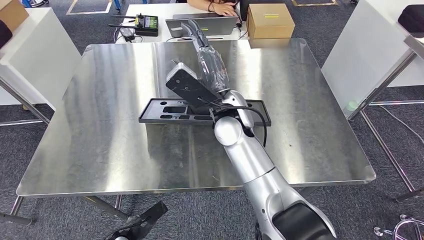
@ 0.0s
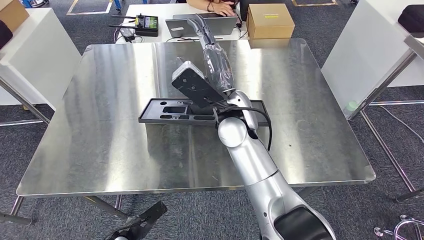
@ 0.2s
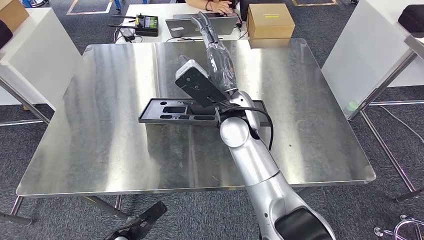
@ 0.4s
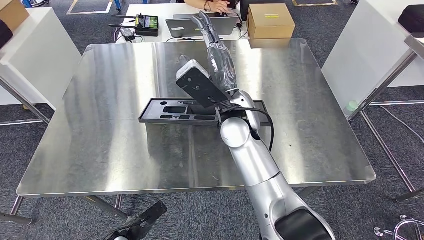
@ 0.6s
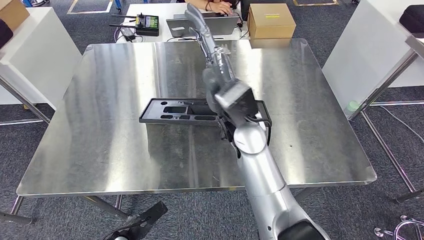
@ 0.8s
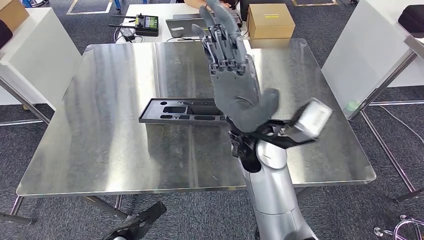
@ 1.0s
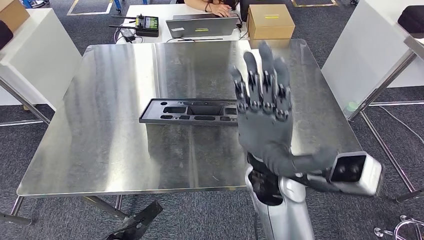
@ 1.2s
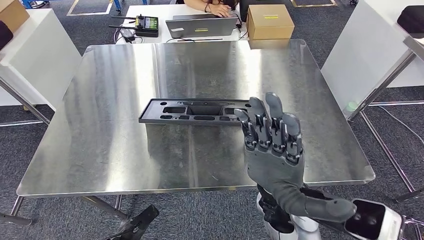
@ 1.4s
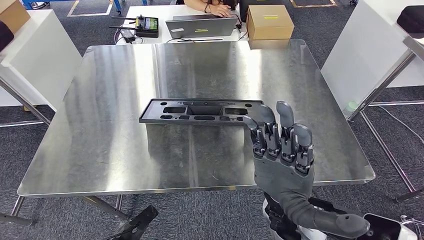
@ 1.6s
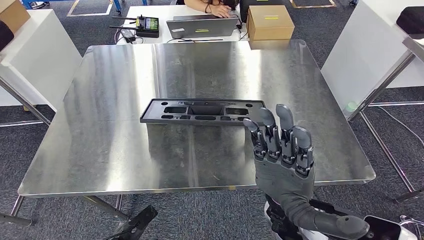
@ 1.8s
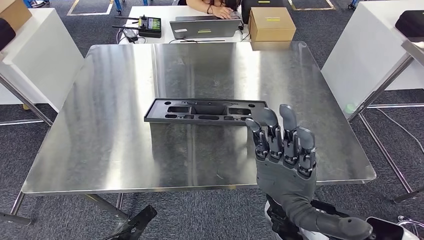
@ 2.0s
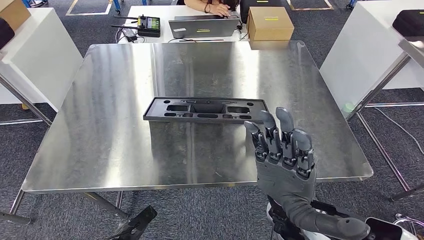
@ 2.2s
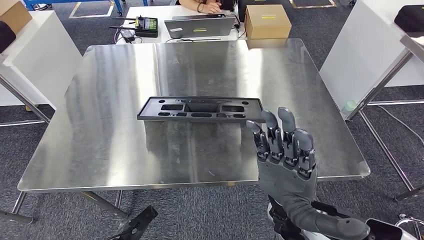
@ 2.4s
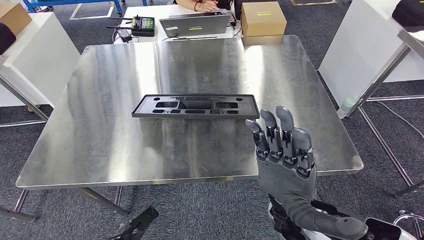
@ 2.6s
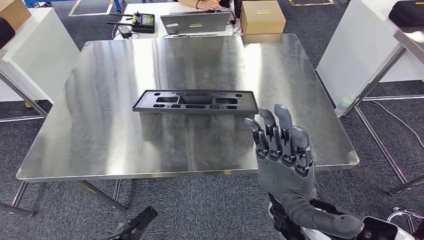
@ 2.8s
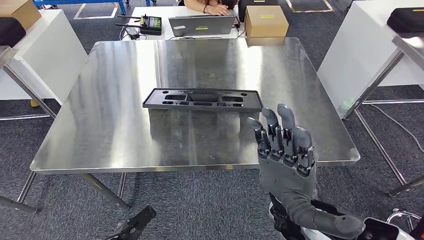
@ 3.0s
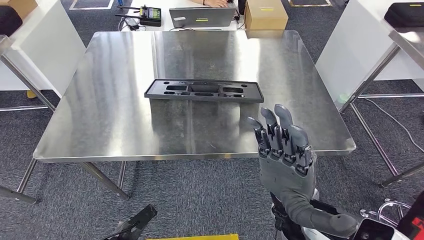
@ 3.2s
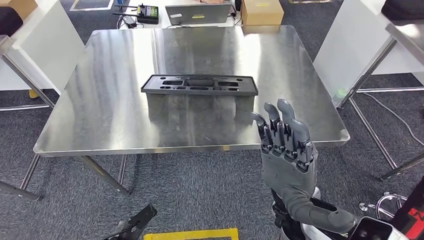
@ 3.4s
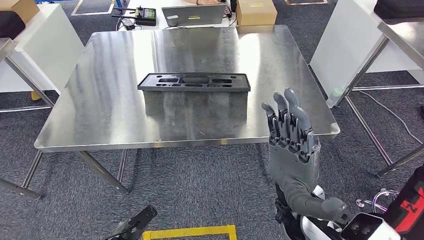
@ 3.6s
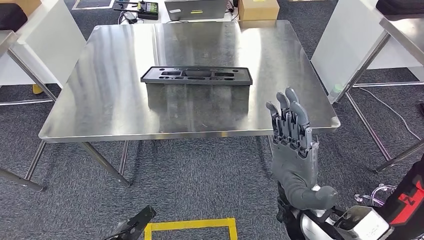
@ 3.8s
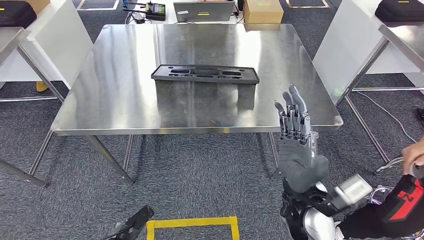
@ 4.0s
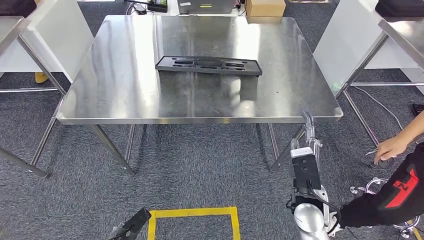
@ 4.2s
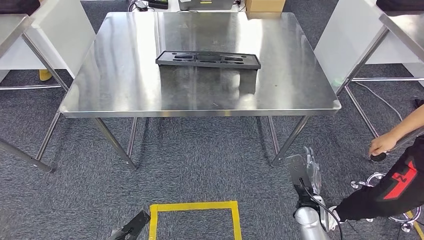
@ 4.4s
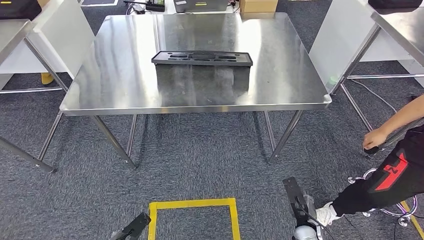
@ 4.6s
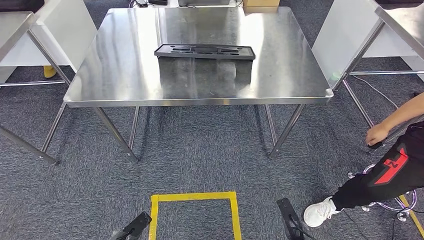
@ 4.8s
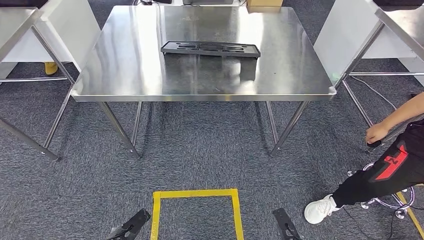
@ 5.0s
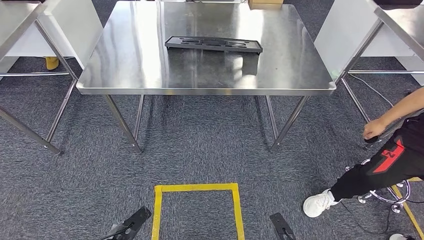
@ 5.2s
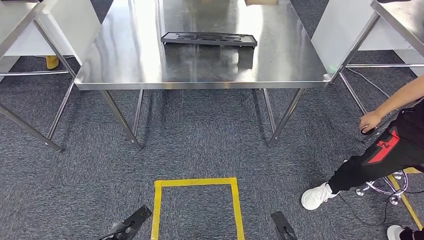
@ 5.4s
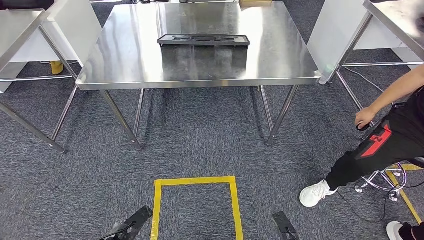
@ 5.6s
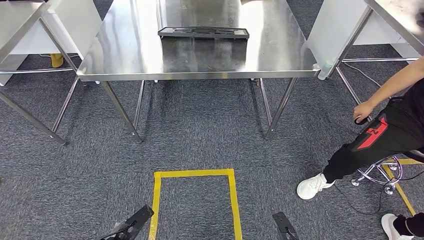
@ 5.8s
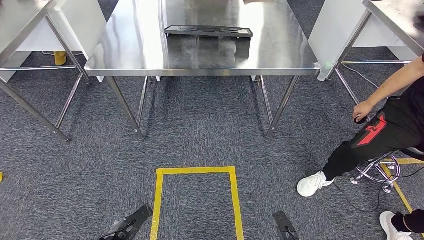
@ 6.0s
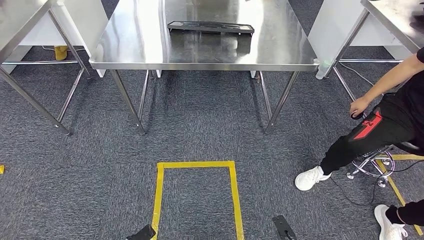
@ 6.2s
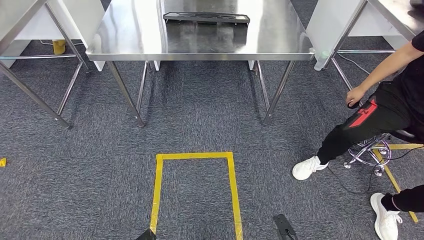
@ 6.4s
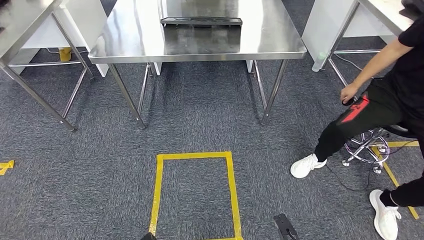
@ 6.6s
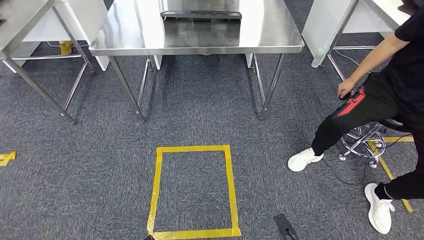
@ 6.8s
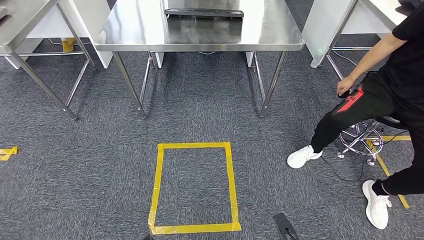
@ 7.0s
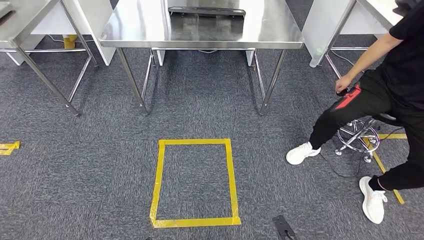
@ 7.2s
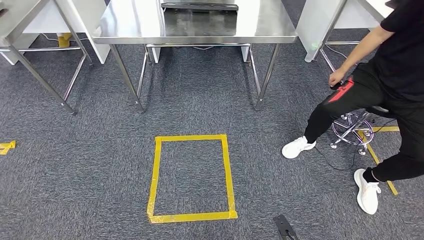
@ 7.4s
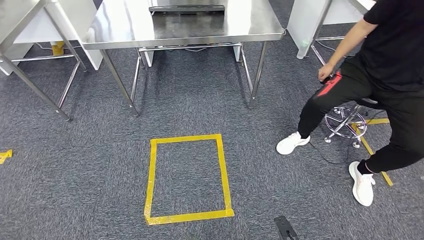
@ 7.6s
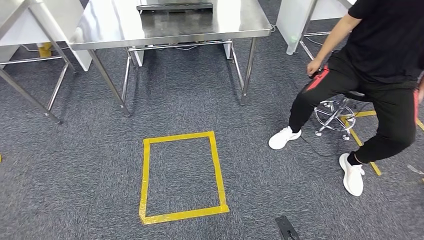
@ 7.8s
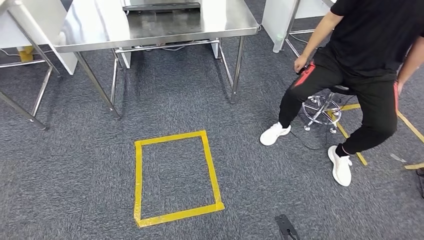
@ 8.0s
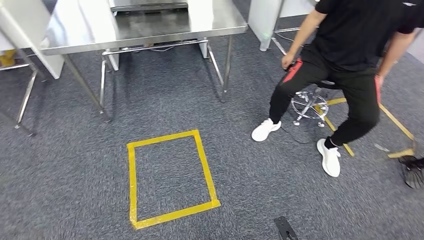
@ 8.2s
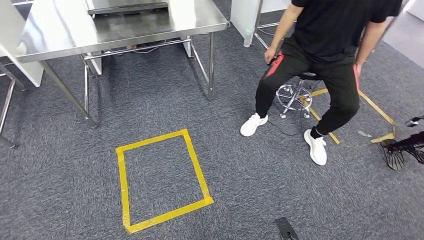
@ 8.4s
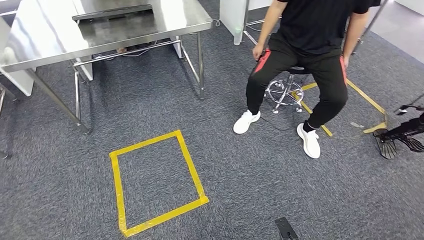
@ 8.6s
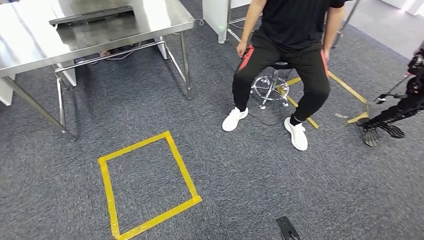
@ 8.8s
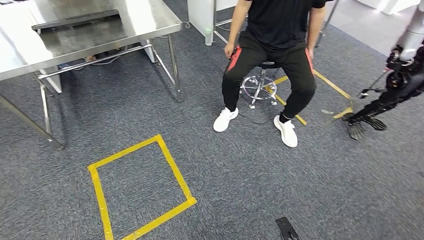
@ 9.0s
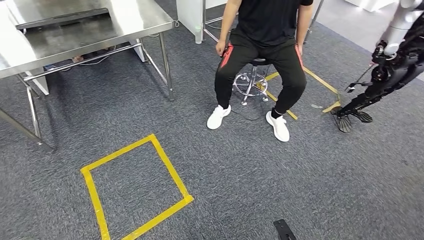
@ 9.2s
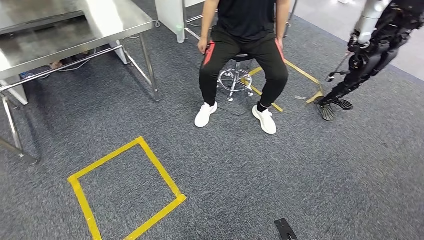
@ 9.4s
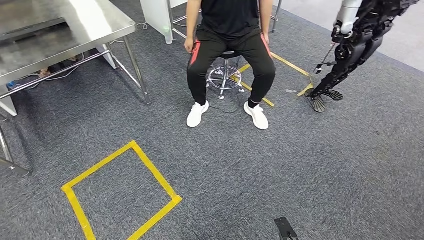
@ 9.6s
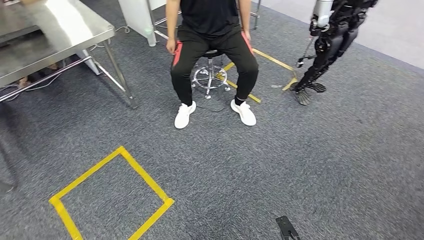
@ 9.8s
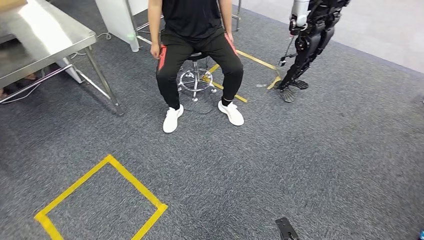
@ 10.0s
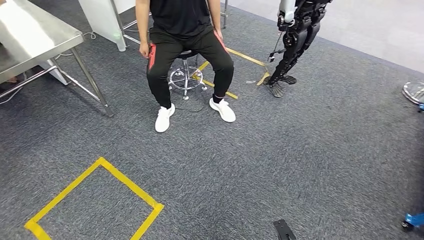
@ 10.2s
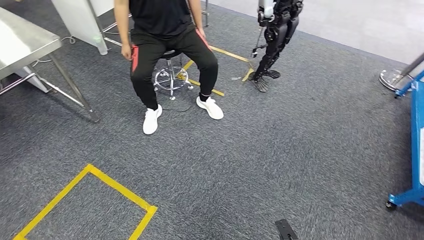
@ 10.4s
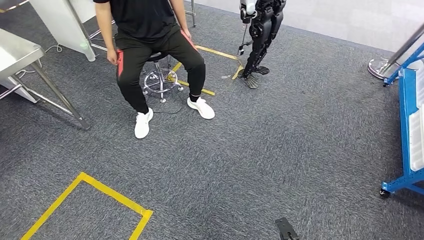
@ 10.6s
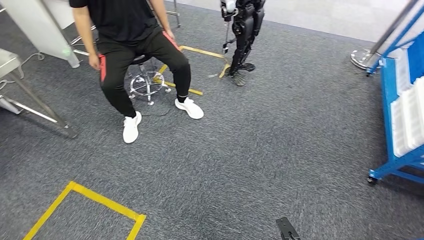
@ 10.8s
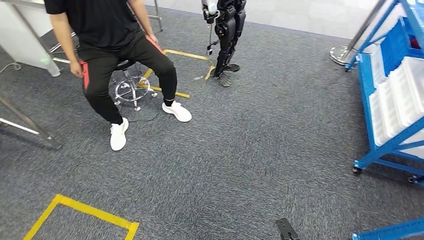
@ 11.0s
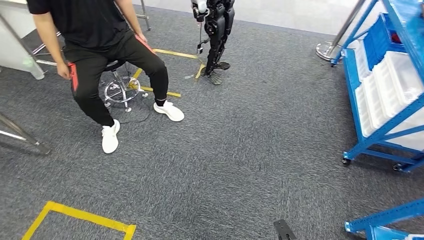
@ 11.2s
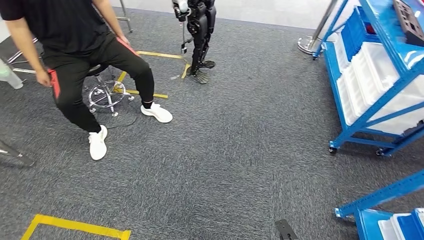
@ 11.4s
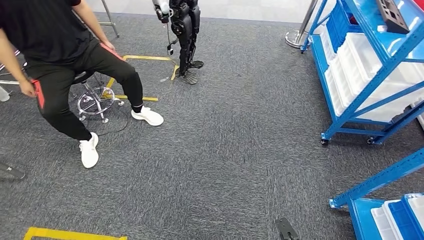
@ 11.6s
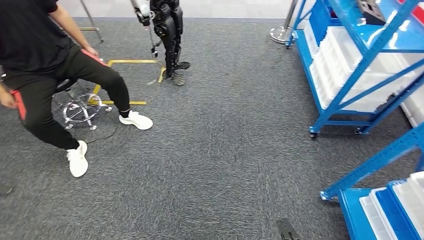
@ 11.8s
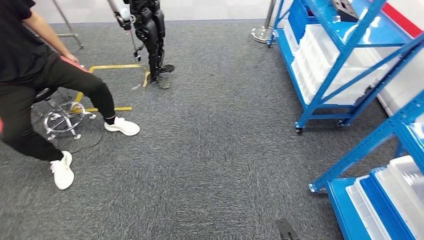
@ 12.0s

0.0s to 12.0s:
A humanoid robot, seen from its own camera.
Step, 0.0s to 6.6s: Insert the large material into the corresponding slot on the workbench.
0.0s to 1.6s: The right hand heads backward, covering approximately 15 cm.

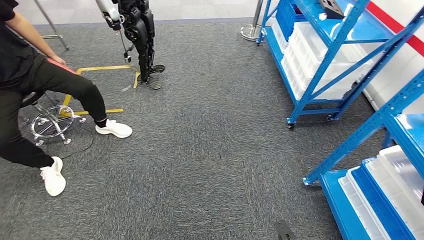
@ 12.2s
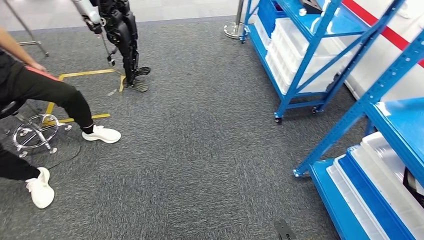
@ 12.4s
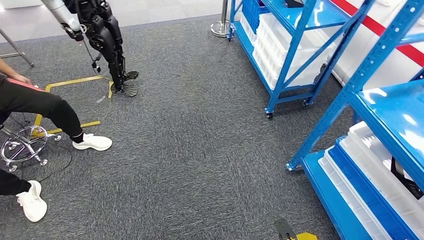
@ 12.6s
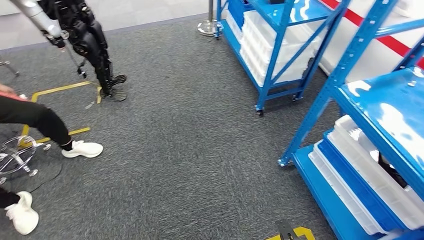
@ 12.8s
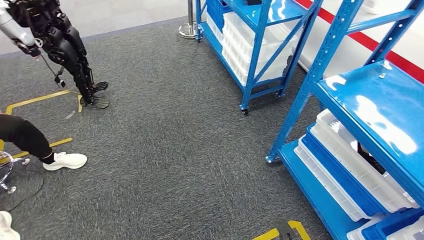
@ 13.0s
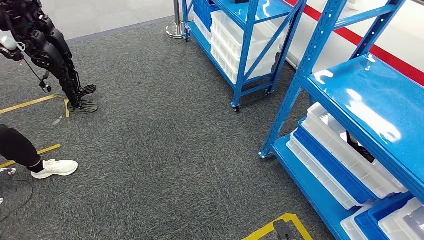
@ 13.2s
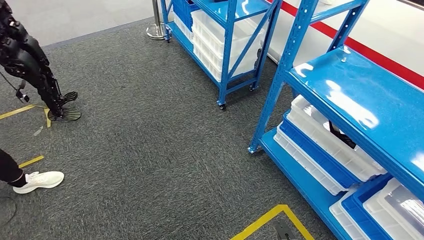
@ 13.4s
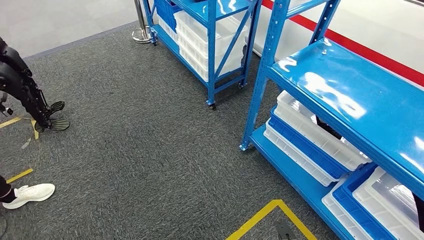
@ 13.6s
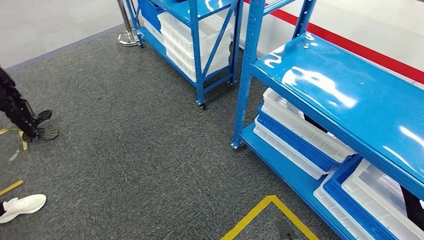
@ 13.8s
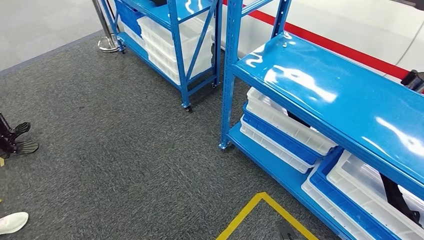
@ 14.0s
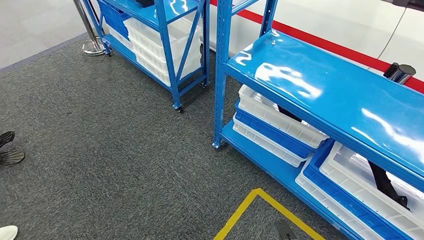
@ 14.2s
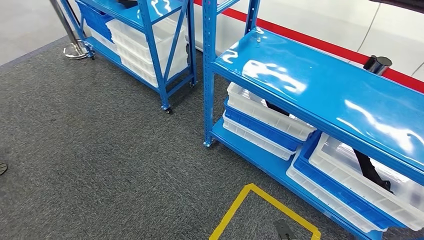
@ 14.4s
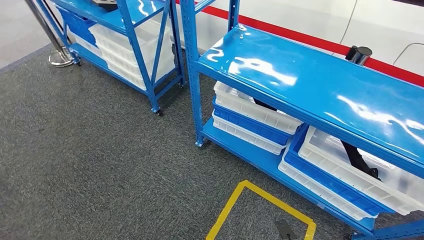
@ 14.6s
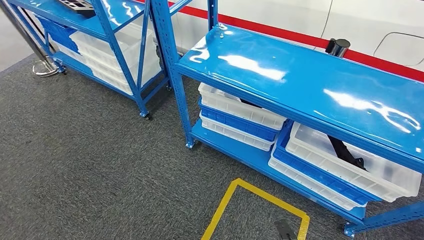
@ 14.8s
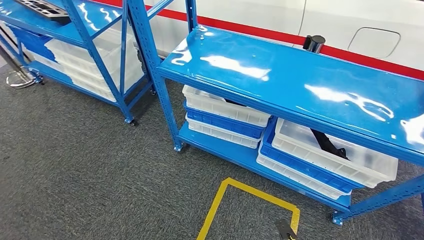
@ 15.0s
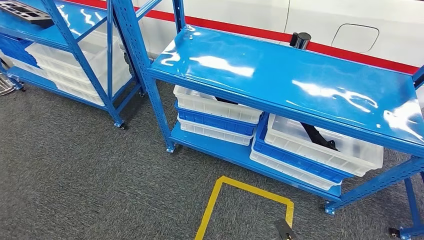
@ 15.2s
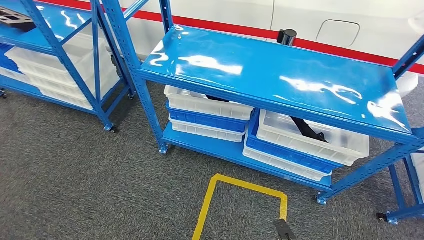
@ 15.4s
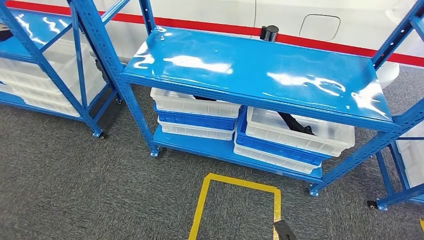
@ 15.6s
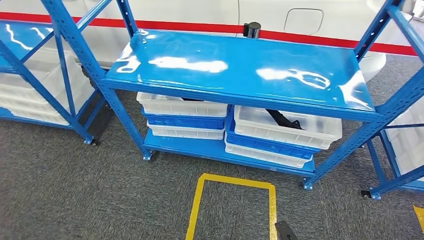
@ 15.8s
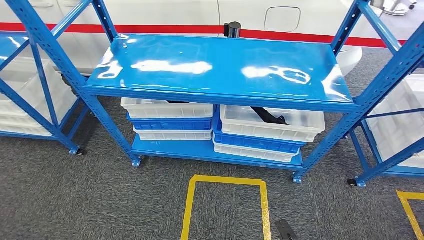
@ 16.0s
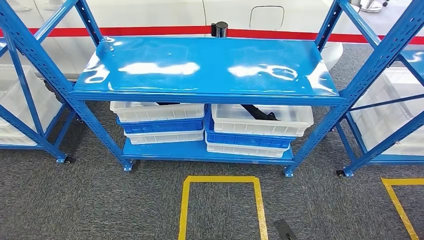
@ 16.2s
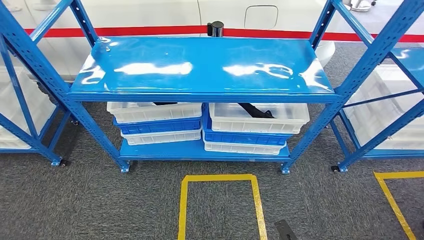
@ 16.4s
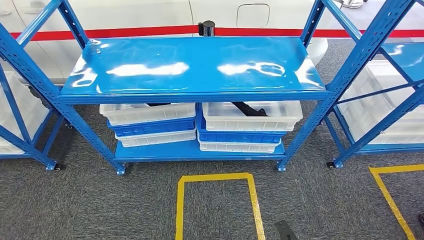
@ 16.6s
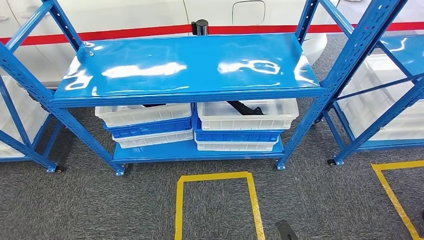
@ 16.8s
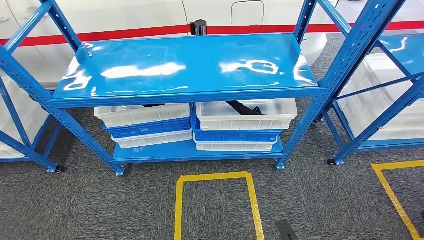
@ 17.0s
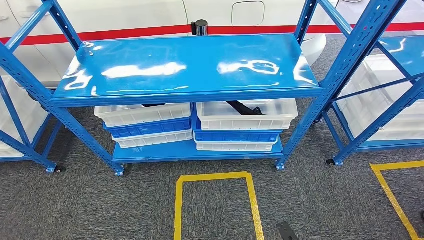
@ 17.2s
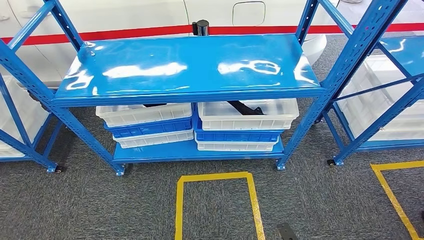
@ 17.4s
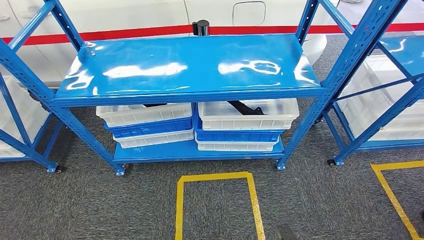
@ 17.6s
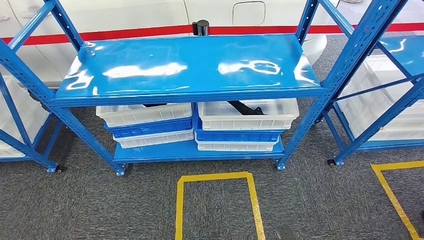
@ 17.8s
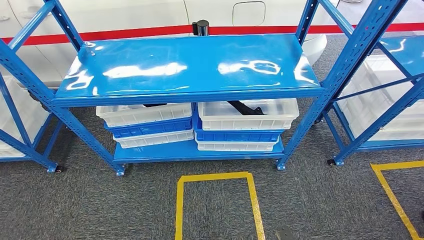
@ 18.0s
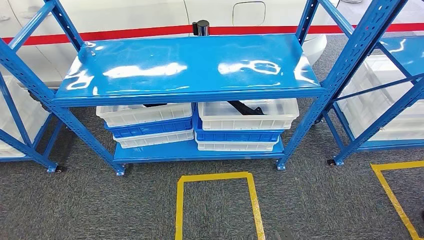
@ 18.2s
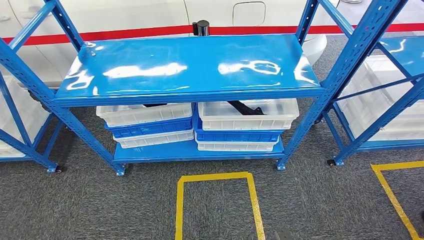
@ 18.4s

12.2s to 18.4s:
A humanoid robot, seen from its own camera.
Step, 12.2s to 18.4s: Move to the initial position of the shelf.
16.8s to 18.4s: The hands both shift backward by approximately 5 cm.
